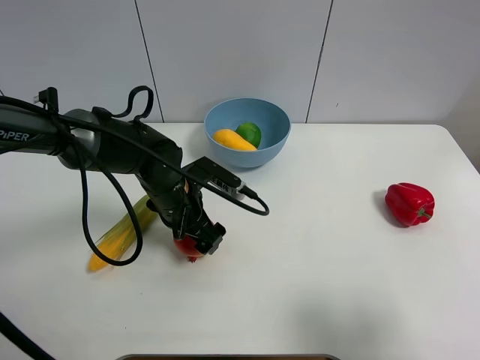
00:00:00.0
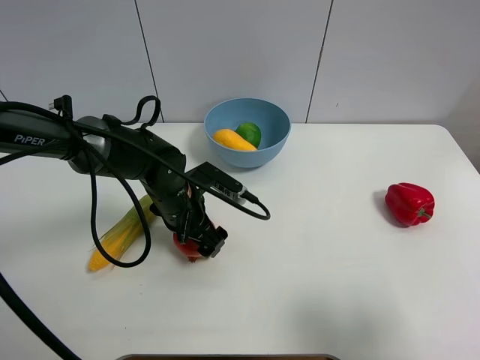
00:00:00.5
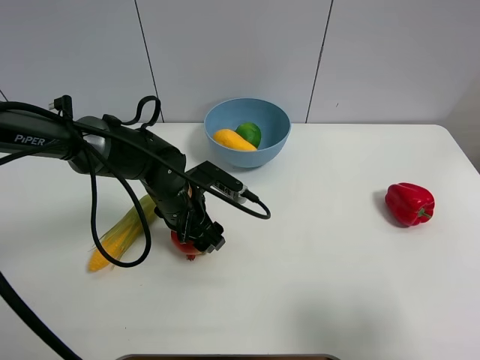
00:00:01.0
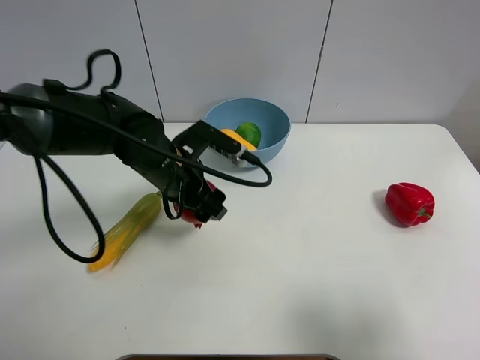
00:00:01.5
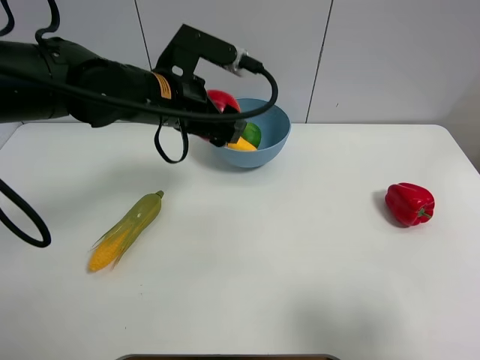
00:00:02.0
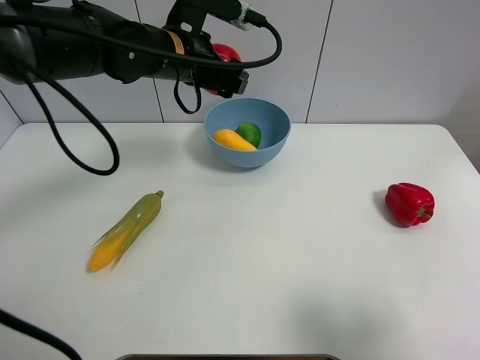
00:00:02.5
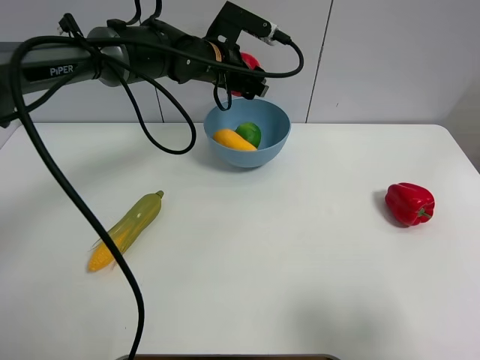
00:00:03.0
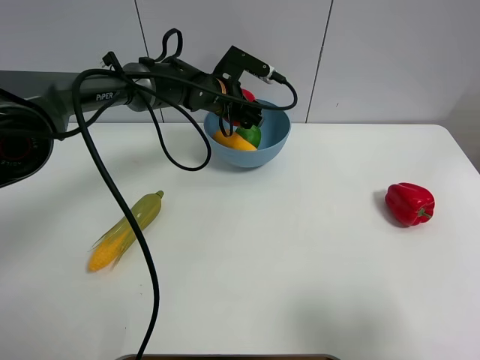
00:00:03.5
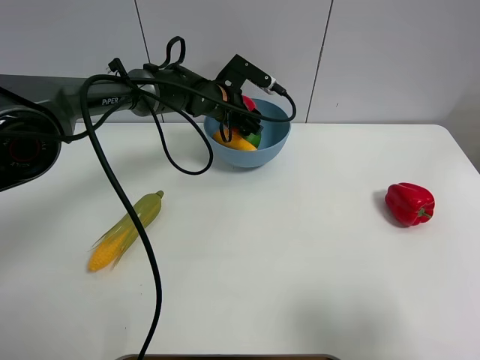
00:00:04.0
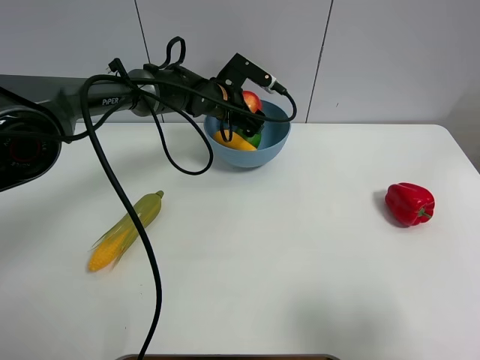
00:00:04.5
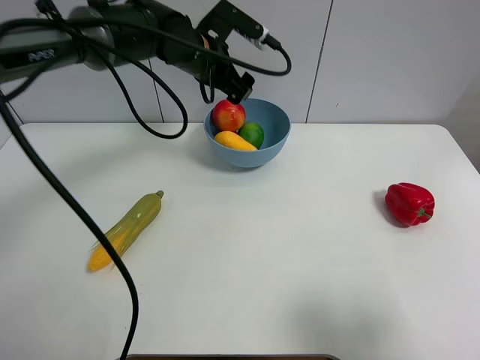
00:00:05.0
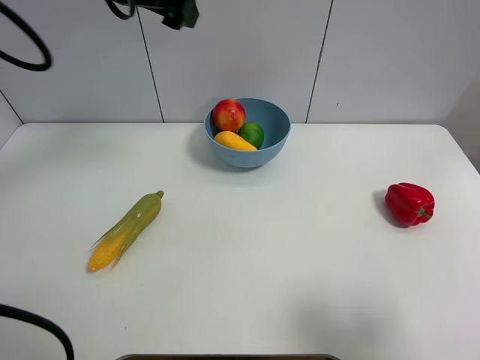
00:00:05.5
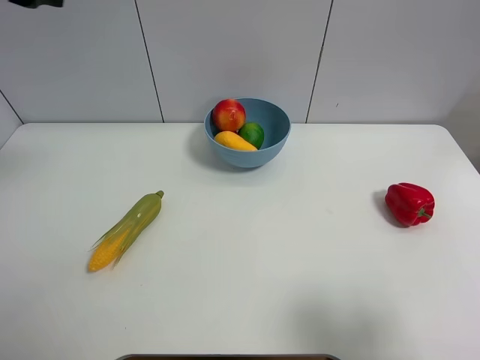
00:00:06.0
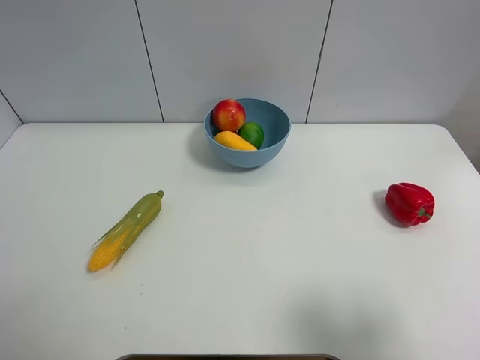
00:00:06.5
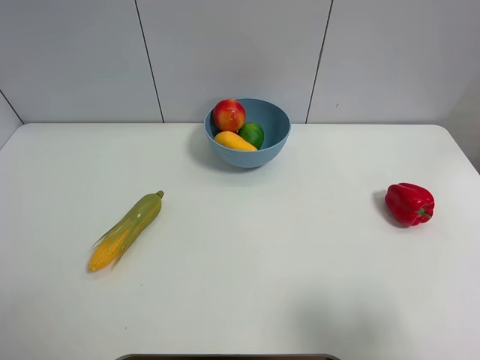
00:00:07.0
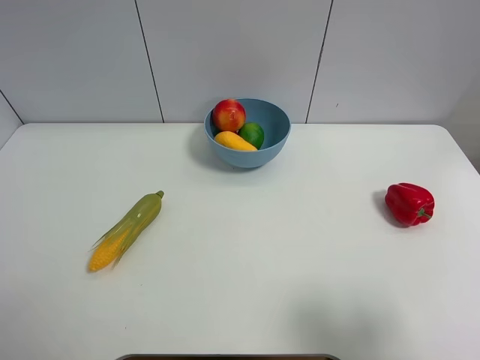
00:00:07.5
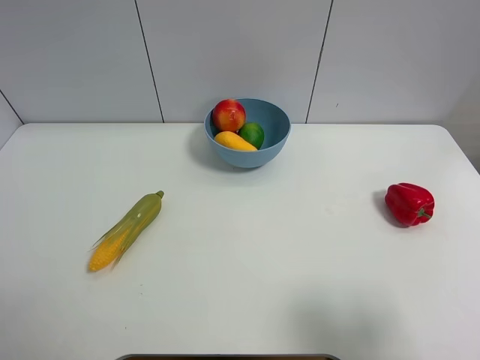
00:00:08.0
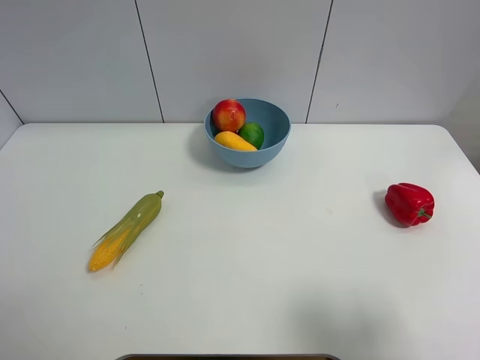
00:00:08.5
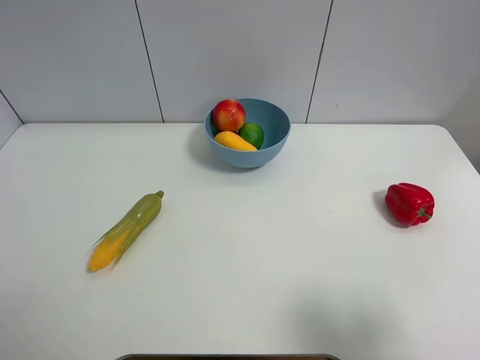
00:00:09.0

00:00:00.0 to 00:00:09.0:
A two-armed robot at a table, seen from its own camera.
Task of the whole recording: Put the three fruits on the table into a bowl.
Step, 00:00:01.0 to 00:00:04.5: Place the pomegranate in the blue bowl with left gripper.
00:00:00.0 to 00:00:02.0: The left gripper is displaced upward by approximately 15 cm, and closes its fingers.
00:00:02.0 to 00:00:04.5: The left gripper shifts some 20 cm forward and downward, and opens up.
00:00:04.5 to 00:00:07.0: The left gripper goes about 60 cm backward, to the left and upward.

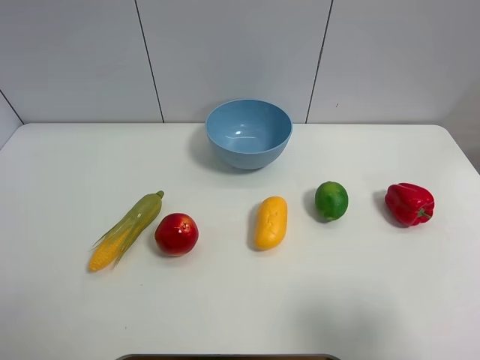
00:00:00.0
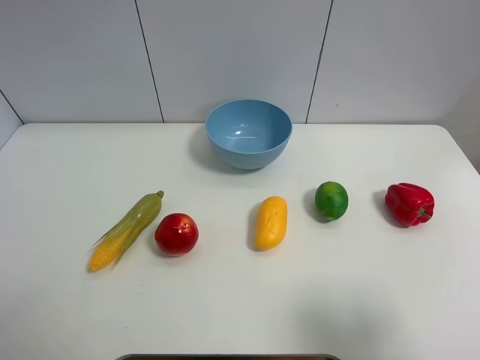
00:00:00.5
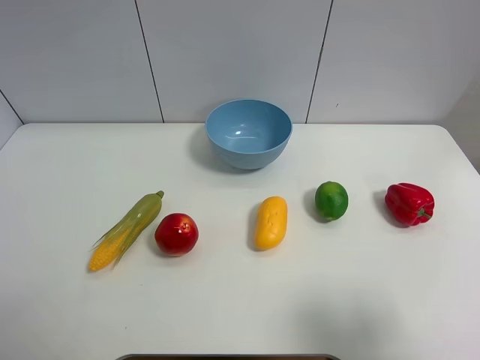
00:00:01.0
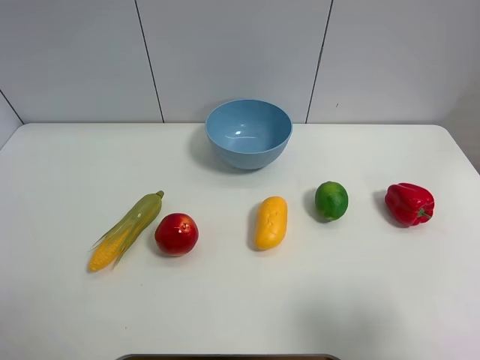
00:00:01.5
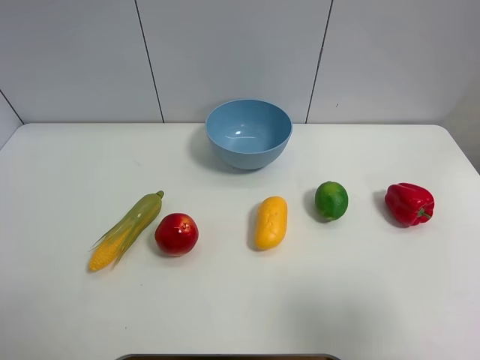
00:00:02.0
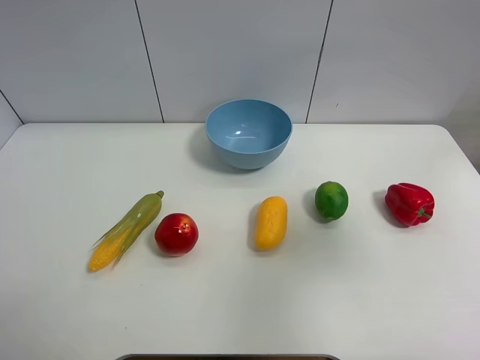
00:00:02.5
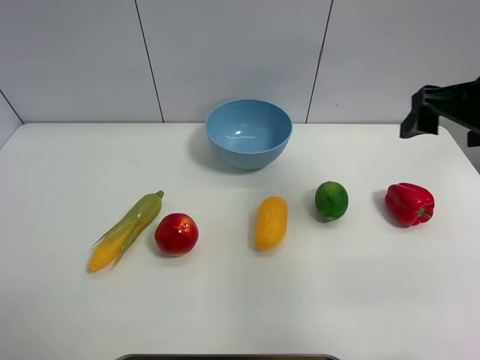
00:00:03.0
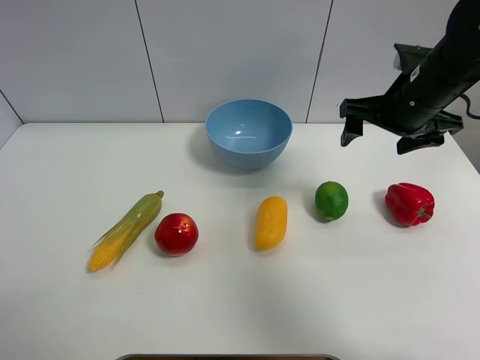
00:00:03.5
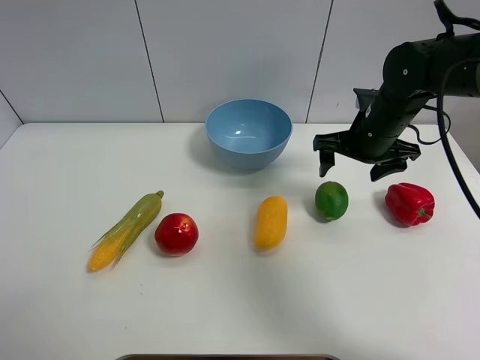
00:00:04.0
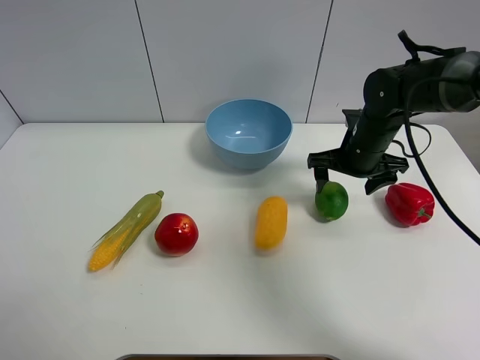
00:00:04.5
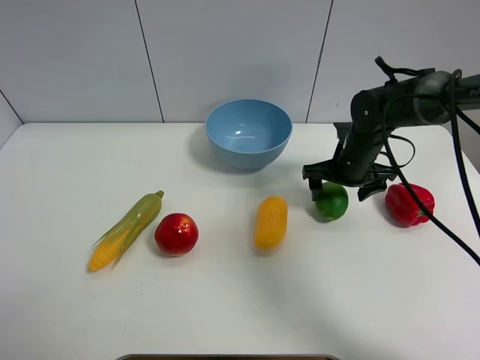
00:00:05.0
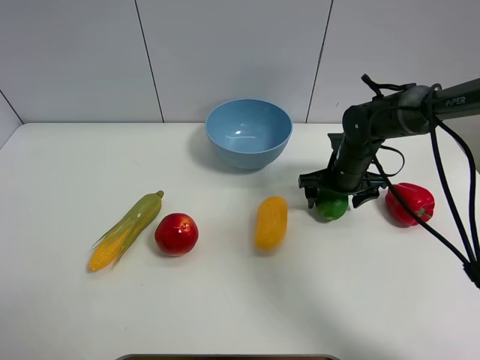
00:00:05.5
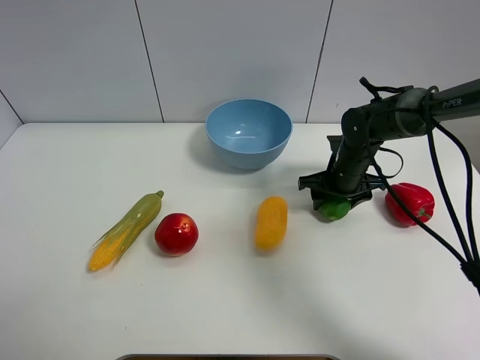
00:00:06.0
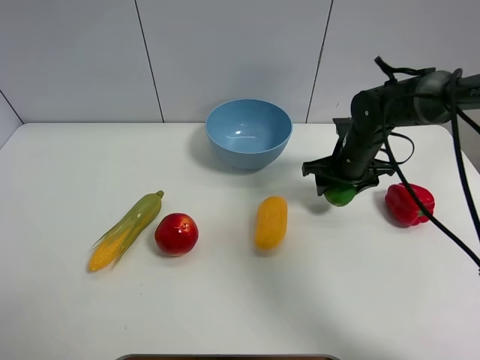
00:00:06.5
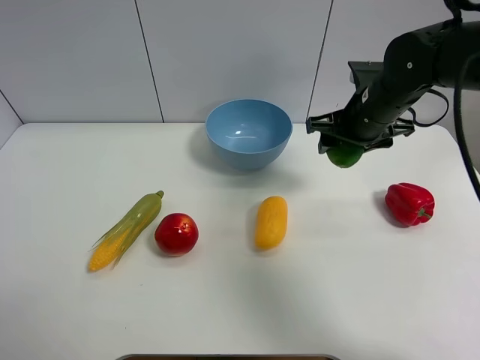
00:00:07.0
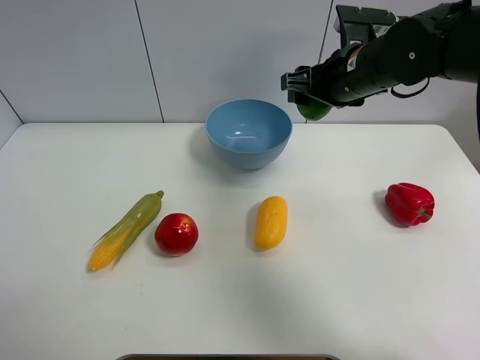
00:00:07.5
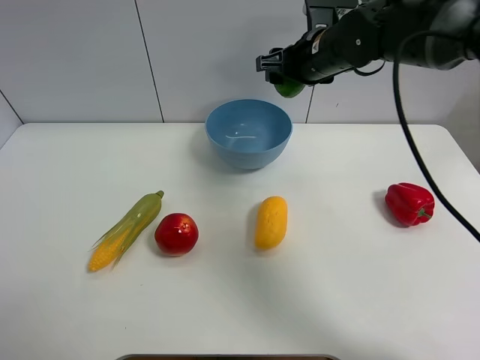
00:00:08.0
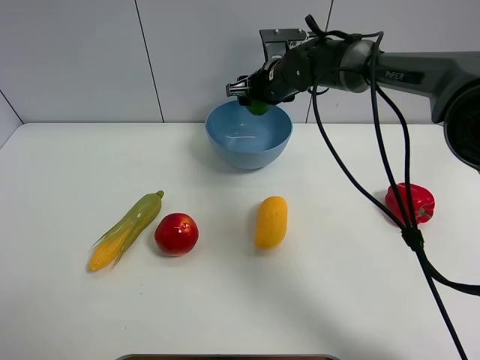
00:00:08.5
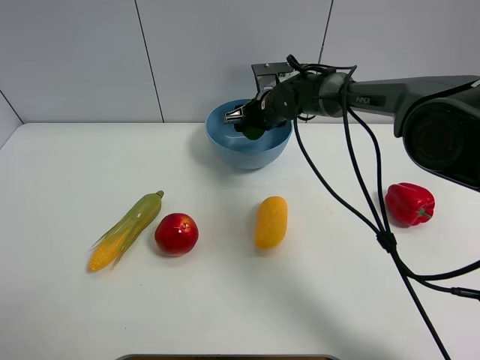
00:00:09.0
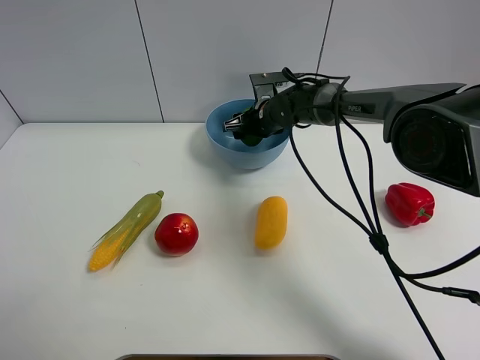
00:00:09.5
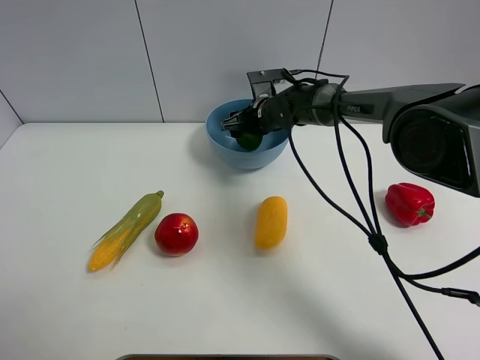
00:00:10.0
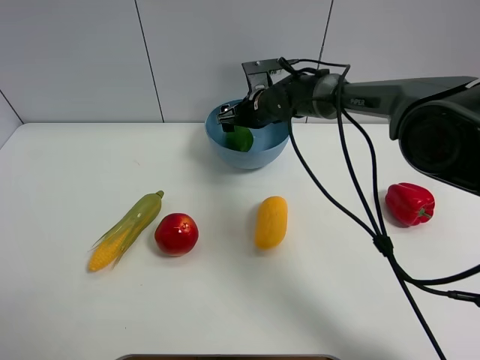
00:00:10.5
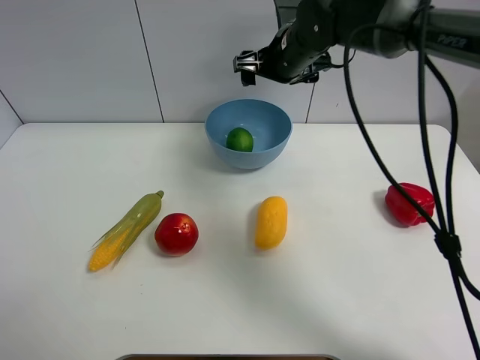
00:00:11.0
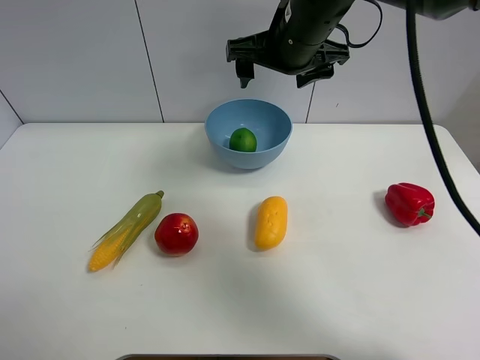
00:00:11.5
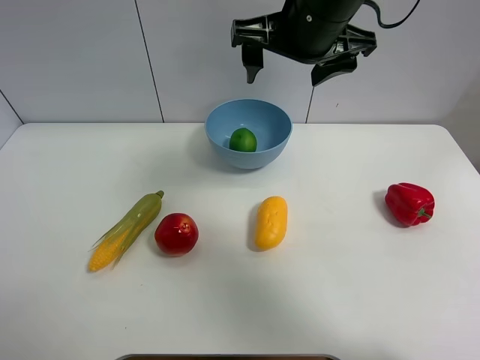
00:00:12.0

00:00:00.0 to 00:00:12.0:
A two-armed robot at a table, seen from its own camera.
Task of the whole recording: Put the three fruits on the table into a bowl.
Step, 00:00:00.0 to 00:00:06.0: Grasp the green lemon with right gripper.
Step, 00:00:06.5 to 00:00:10.5: Place the green lemon in the blue bowl with right gripper.
00:00:02.0 to 00:00:04.0: The right gripper heads forward, covering approximately 35 cm.
00:00:04.0 to 00:00:06.0: The right gripper moves downward, some 10 cm, and closes up.
00:00:06.0 to 00:00:08.0: The right gripper travels upward and to the left by approximately 20 cm.
00:00:08.0 to 00:00:10.0: The right gripper is displaced downward and forward by roughly 15 cm.
00:00:10.0 to 00:00:12.0: The right gripper travels upward and backward by some 30 cm, and opens up.

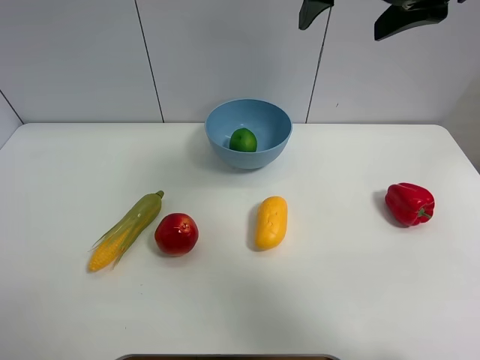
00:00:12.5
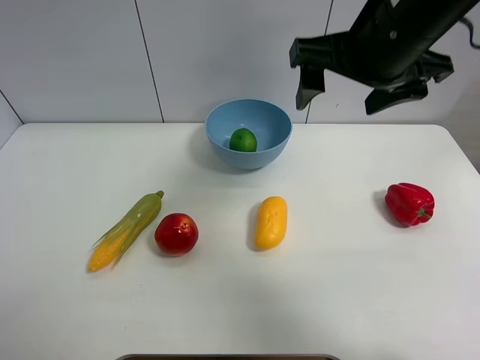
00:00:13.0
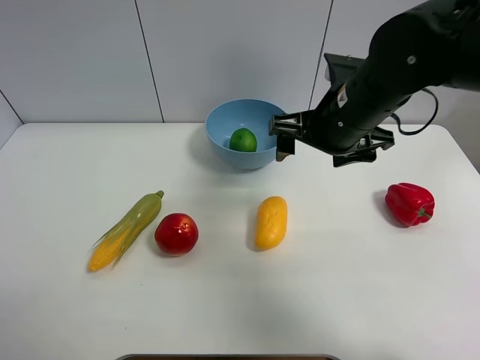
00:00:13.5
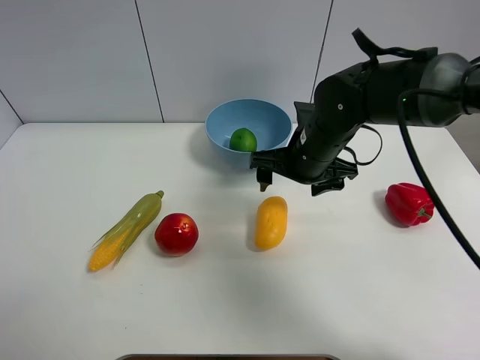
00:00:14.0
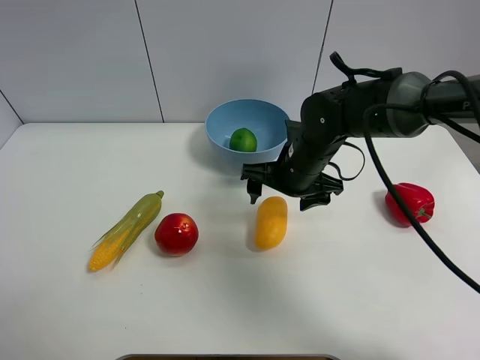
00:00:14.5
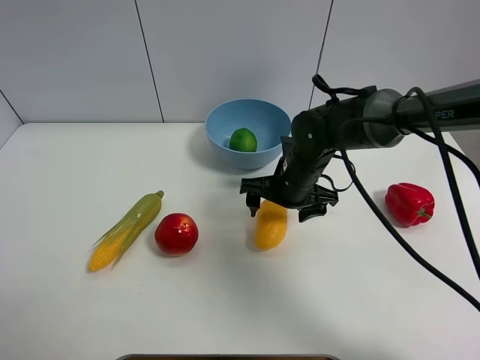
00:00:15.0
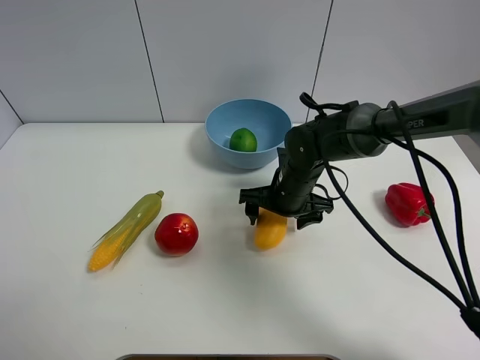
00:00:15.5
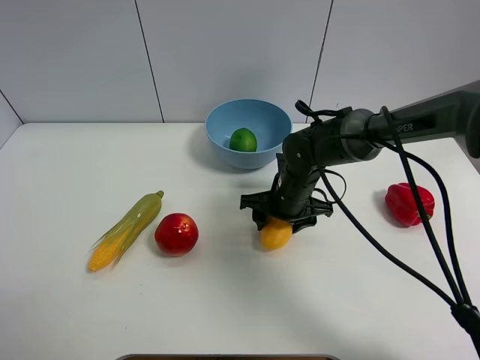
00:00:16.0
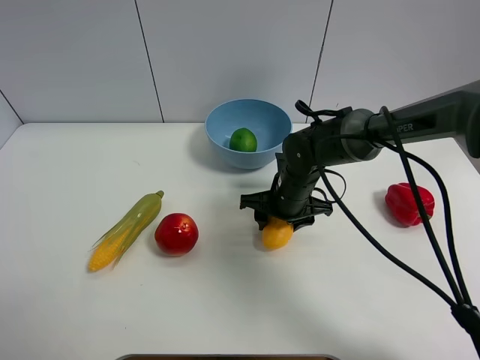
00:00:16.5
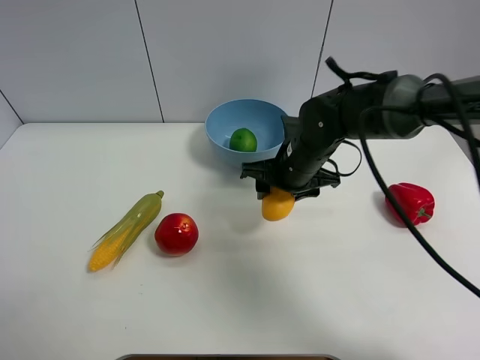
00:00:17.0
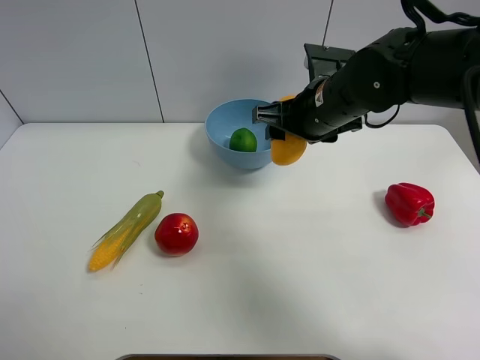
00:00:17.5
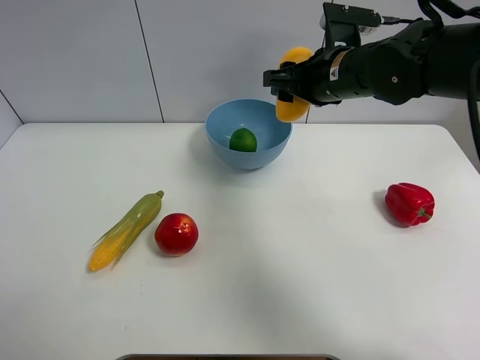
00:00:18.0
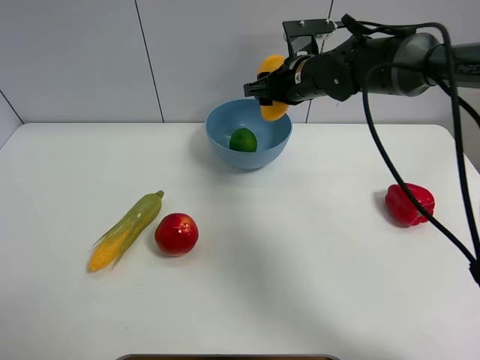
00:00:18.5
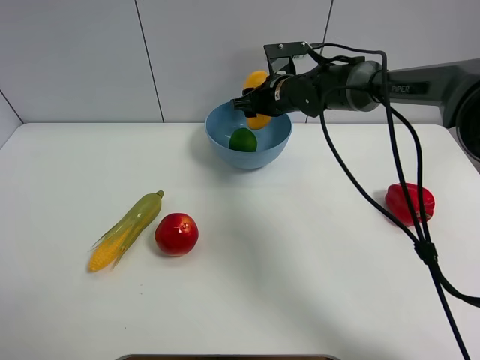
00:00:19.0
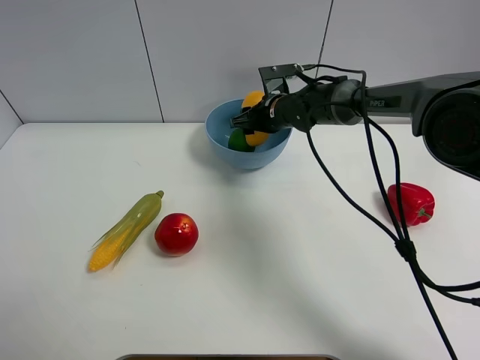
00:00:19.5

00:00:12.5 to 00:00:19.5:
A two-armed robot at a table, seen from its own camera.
Task of the whole recording: Put the three fruits on the table into a bowl.
Step, 00:00:12.5 to 00:00:16.0: Grasp the mango with right gripper.
00:00:12.5 to 00:00:14.5: The right gripper shifts about 30 cm downward.
00:00:14.5 to 00:00:16.0: The right gripper travels downward by about 5 cm, and closes up.
00:00:16.0 to 00:00:17.5: The right gripper travels upward by about 15 cm.
00:00:17.5 to 00:00:19.5: The right gripper shifts roughly 20 cm forward and downward.
